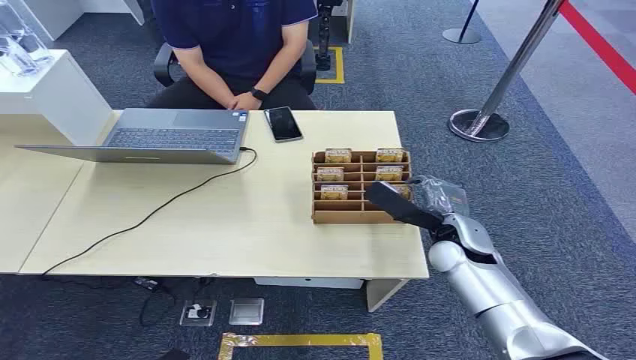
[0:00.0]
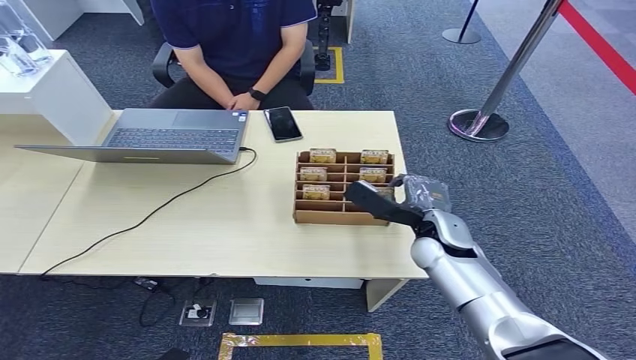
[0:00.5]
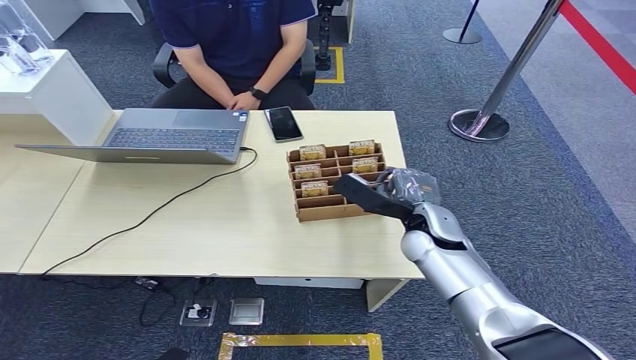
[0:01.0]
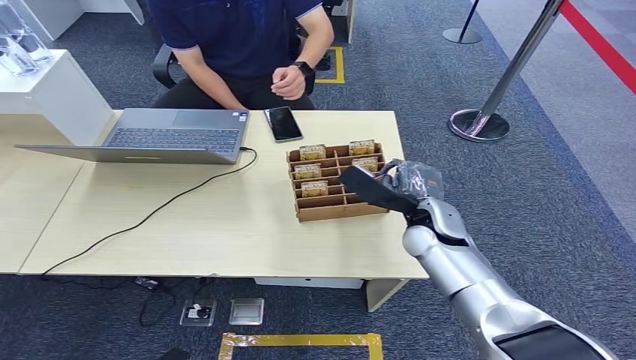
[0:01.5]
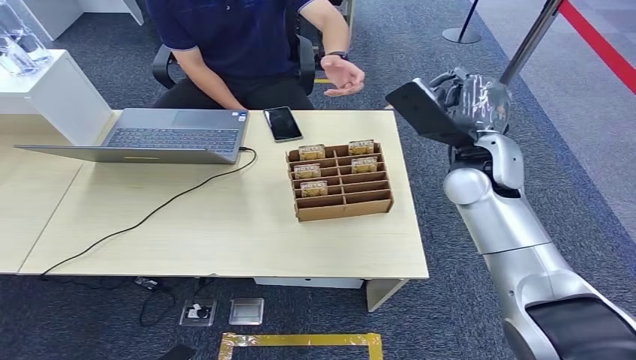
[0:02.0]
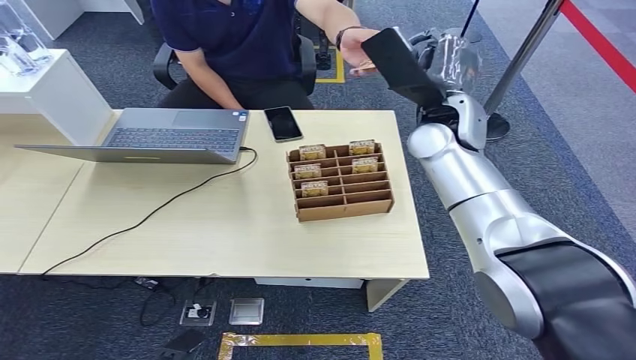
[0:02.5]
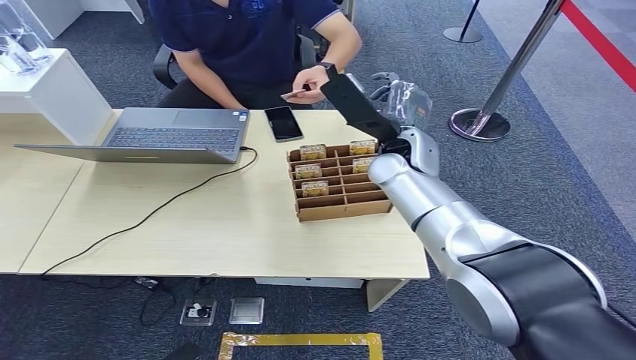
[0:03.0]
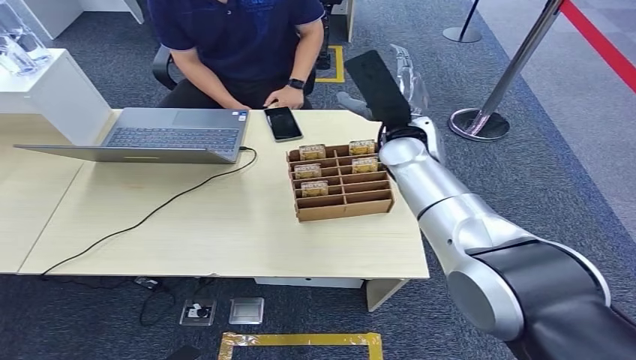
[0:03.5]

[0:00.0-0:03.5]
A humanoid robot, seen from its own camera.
Step, 0:00.0 to 0:01.5: Pick up the room card from the card holder.
Step, 0:02.5 to 0:03.5: Hand the room card to the target.
0:02.0 to 0:03.5: The right hand goes downward and returns, roughly 10 cm each way.

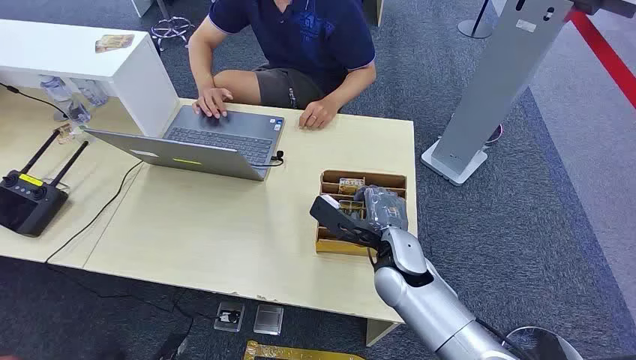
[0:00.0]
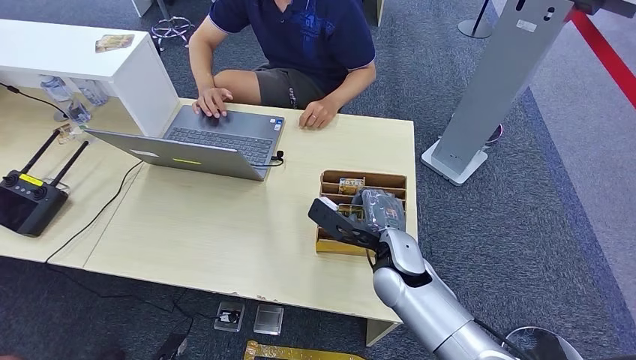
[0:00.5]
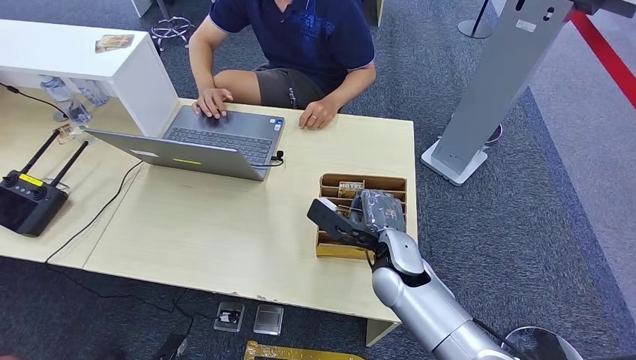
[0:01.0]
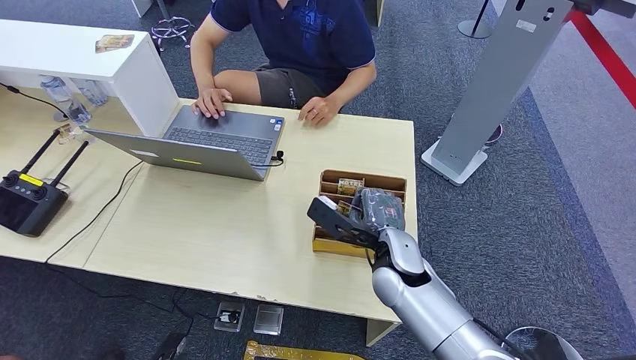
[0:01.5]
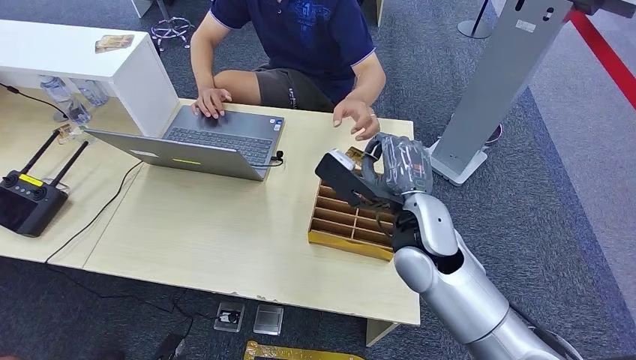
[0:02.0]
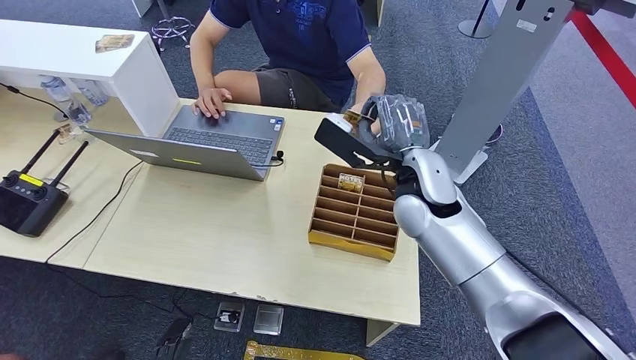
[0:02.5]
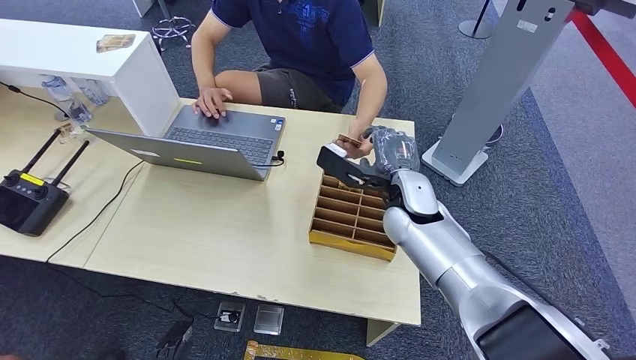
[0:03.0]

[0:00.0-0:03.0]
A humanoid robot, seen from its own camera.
Step, 0:00.0 to 0:01.5: Pick up the room card from the card holder.
Step, 0:02.5 to 0:03.0: Hand the room card to the target.
0:01.5 to 0:03.0: The right hand travels forward by some 10 cm, and reaches roughly 10 cm upward, then returns.

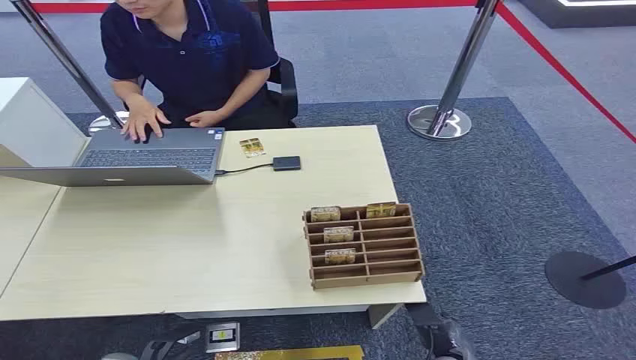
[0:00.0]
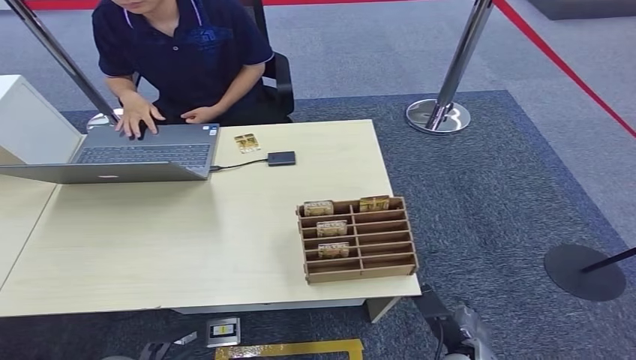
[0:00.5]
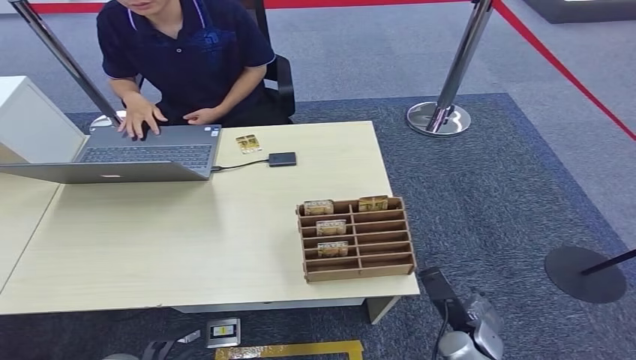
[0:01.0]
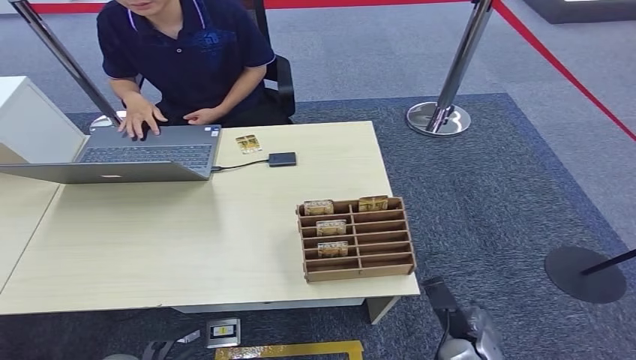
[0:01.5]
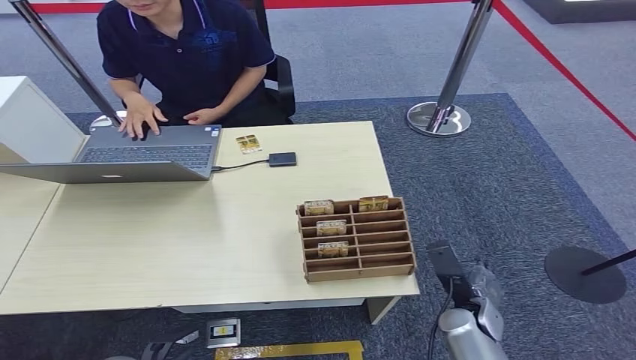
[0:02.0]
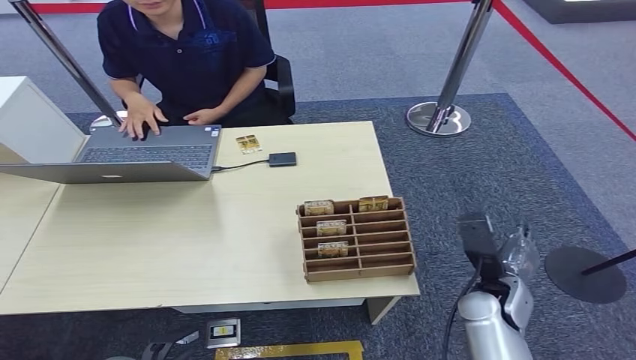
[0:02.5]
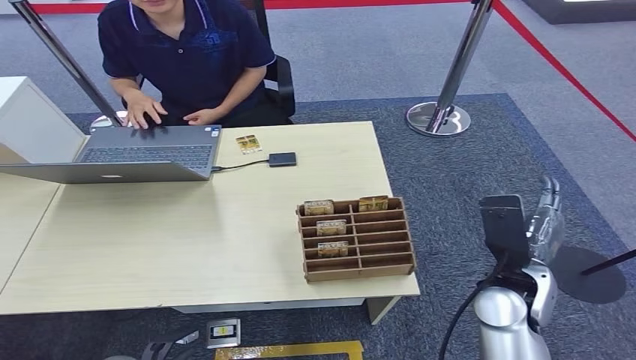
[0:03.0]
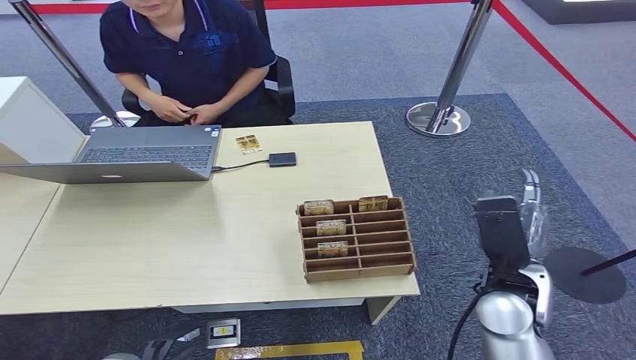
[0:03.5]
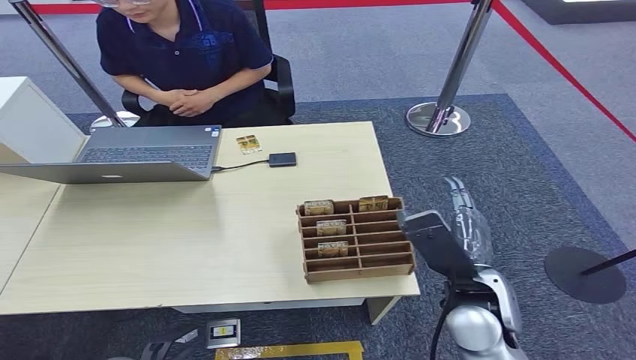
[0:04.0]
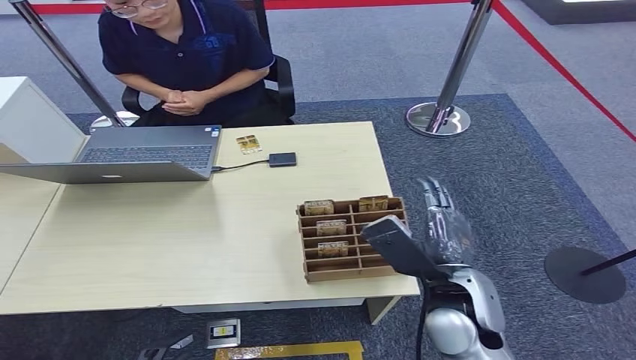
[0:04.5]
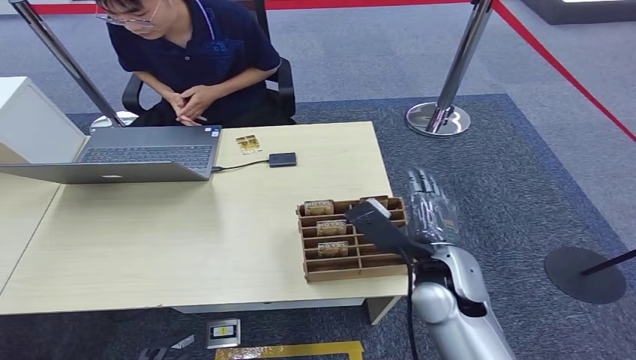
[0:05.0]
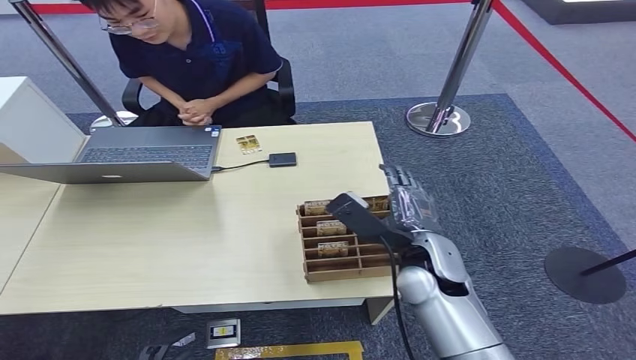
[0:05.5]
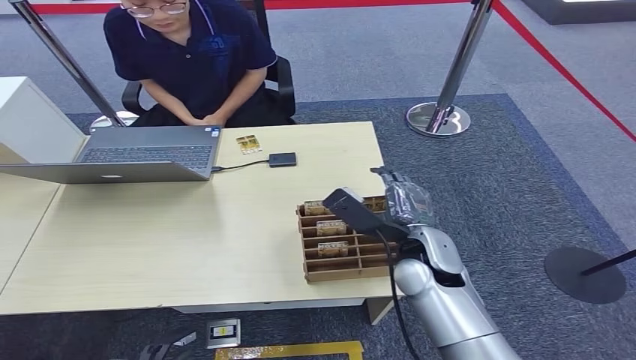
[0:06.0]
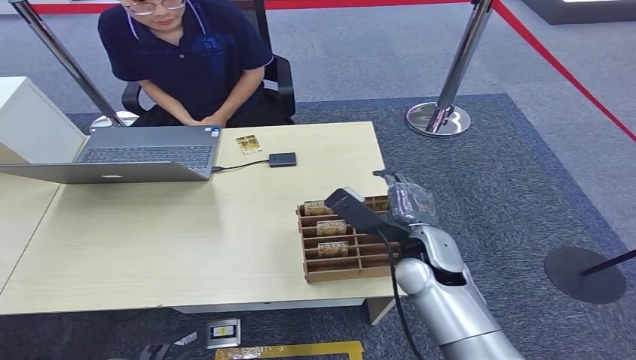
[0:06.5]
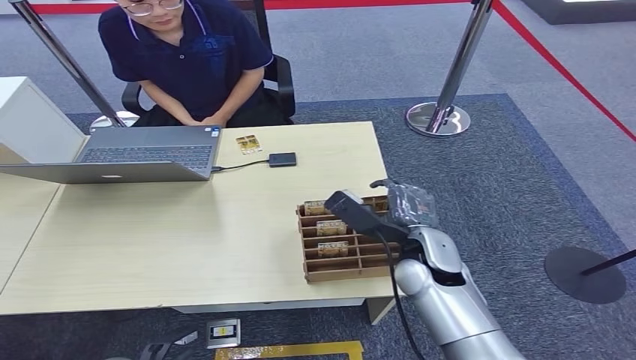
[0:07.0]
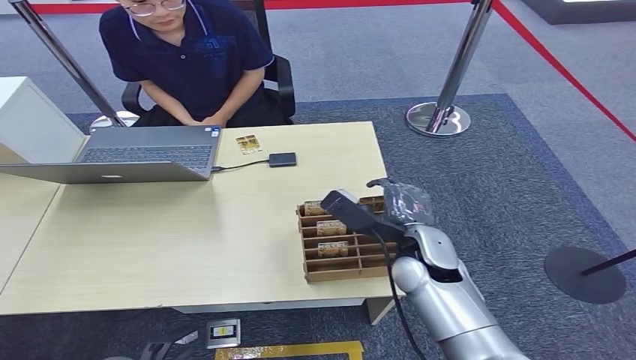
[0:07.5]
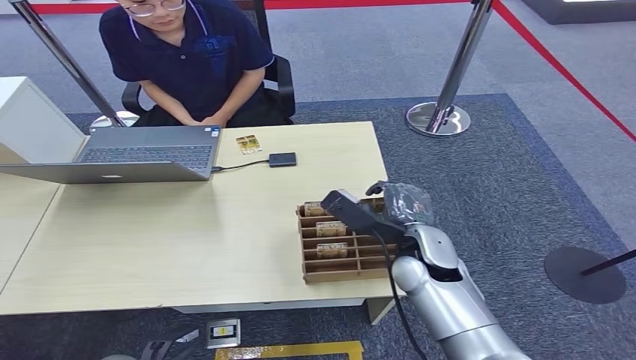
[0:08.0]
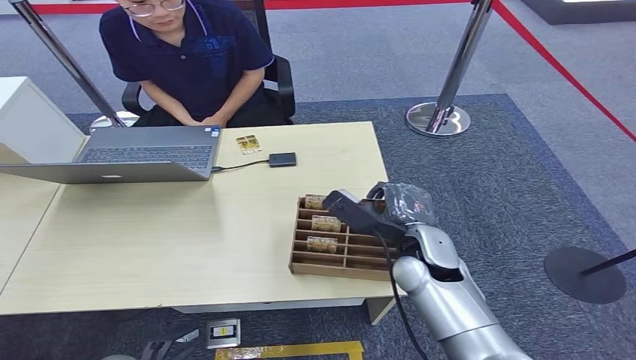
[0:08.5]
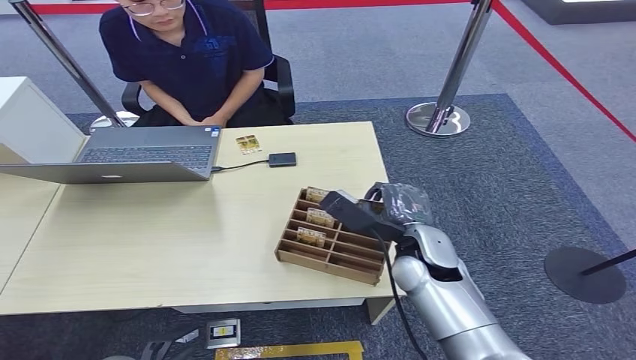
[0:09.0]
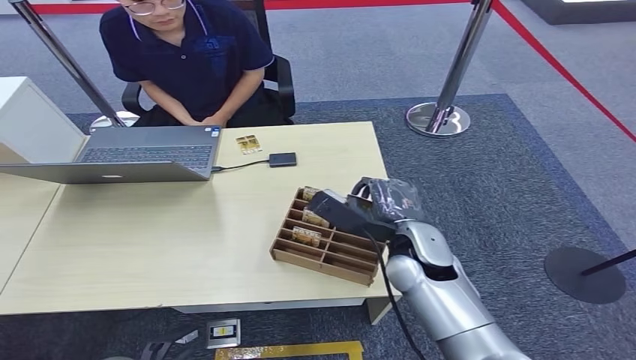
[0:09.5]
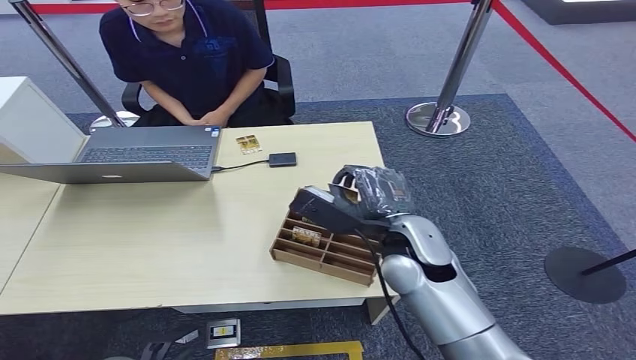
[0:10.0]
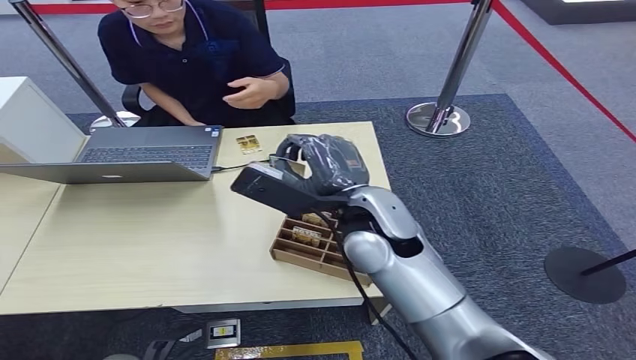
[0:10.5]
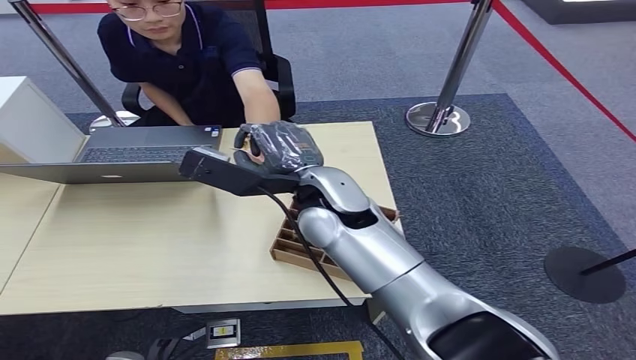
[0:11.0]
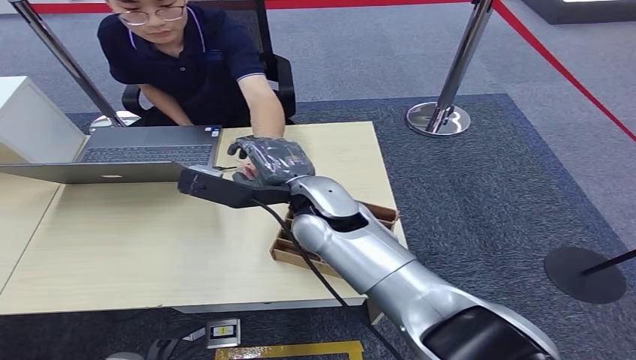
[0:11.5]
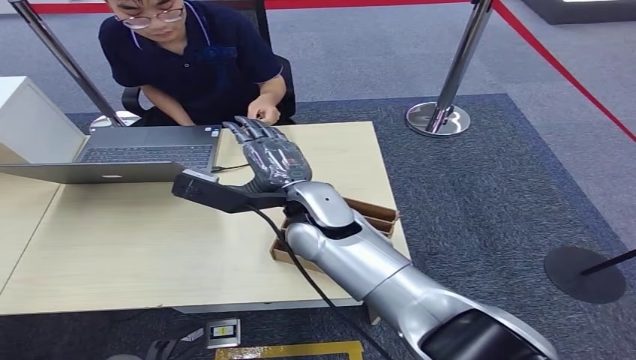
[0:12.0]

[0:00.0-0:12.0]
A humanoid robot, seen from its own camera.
Step, 0:00.0 to 0:09.0: Pick up the room card from the card holder.
Step, 0:09.5 to 0:12.0: Hand the room card to the target.
0:02.0 to 0:04.0: The right hand shifts about 15 cm upward and to the left.
0:04.0 to 0:06.0: The right hand is displaced forward by approximately 10 cm.
0:06.0 to 0:08.0: The hands stay close to where they were, moving slightly.
0:08.0 to 0:10.0: The right hand shifts some 10 cm upward and to the left.

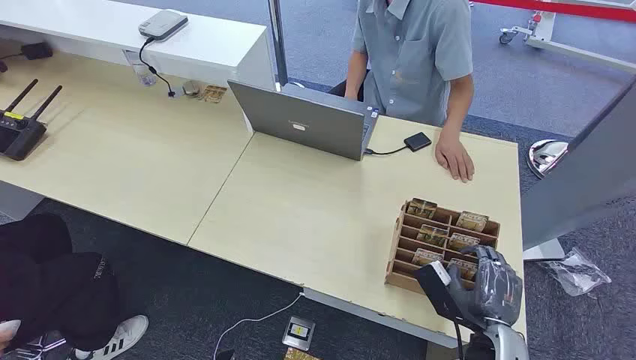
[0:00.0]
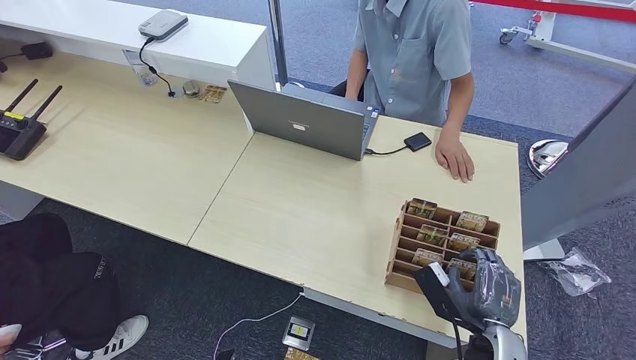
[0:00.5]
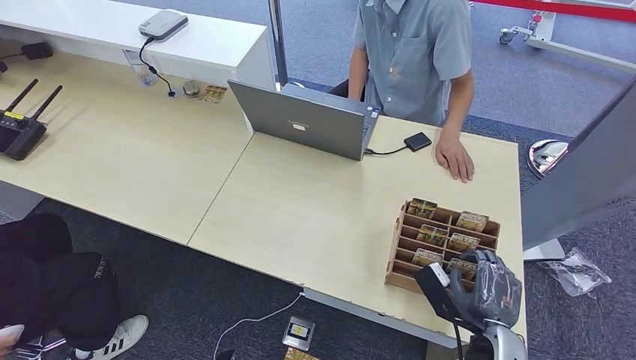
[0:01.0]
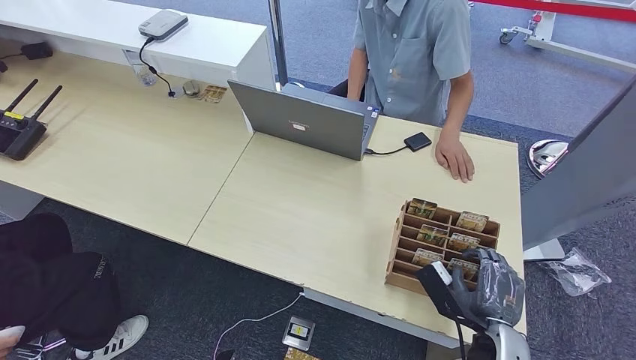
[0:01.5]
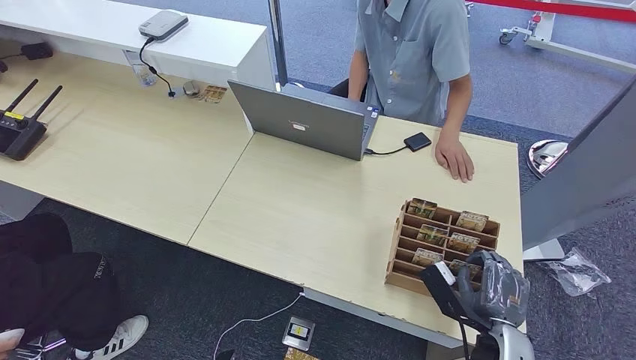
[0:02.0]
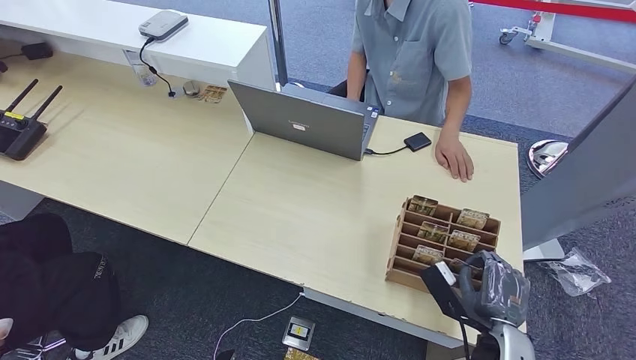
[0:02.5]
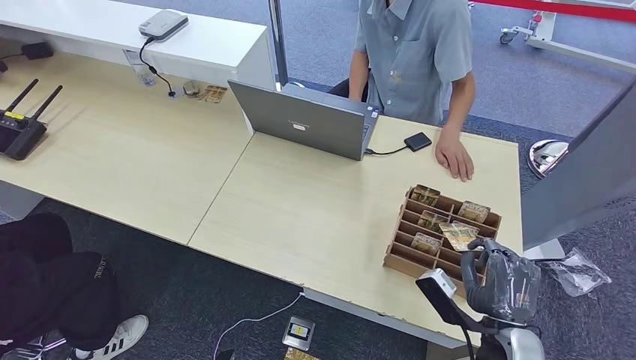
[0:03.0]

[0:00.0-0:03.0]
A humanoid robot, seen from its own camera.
0:01.5 to 0:03.0: The right hand shifts approximately 10 cm upward.
